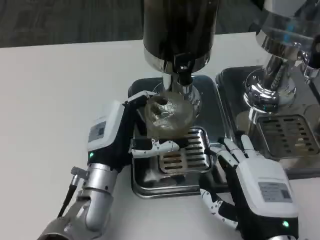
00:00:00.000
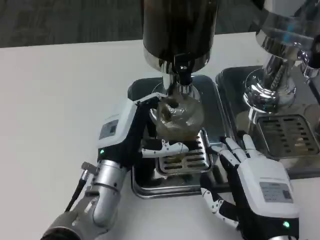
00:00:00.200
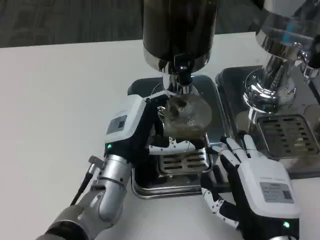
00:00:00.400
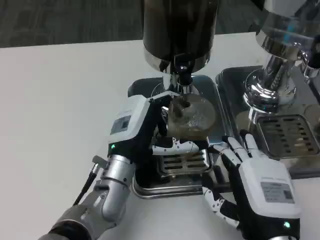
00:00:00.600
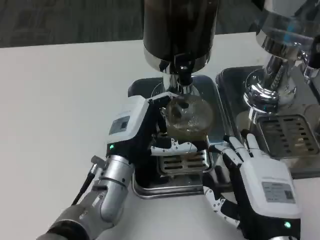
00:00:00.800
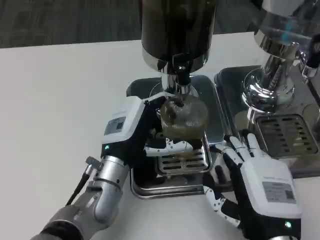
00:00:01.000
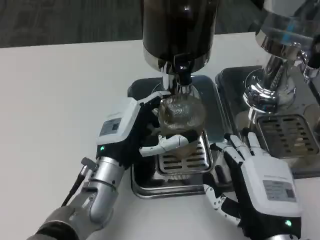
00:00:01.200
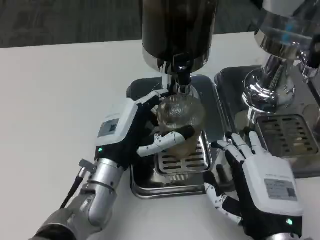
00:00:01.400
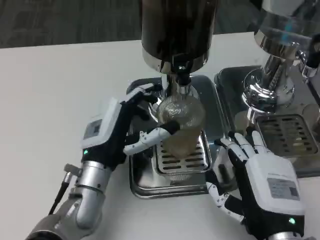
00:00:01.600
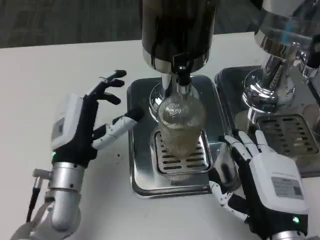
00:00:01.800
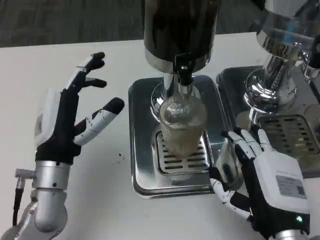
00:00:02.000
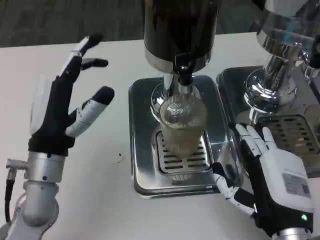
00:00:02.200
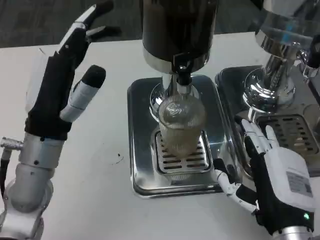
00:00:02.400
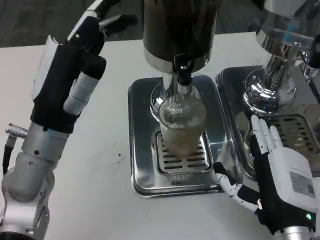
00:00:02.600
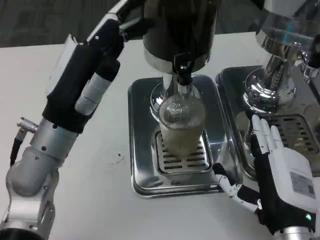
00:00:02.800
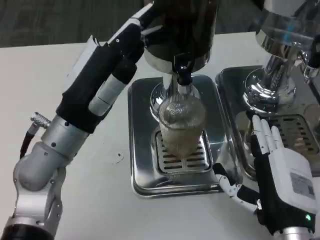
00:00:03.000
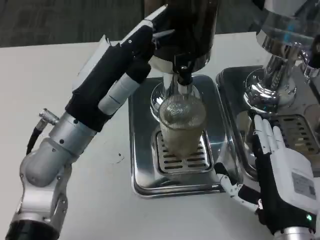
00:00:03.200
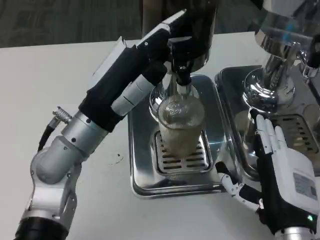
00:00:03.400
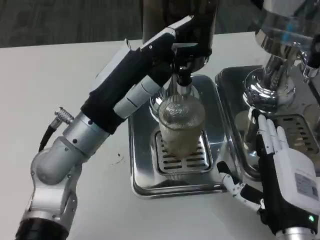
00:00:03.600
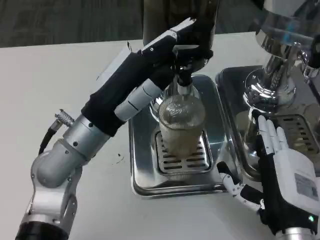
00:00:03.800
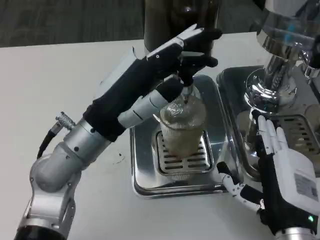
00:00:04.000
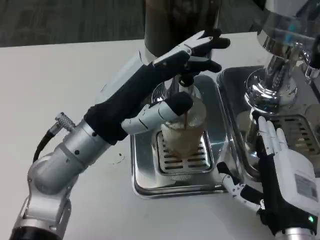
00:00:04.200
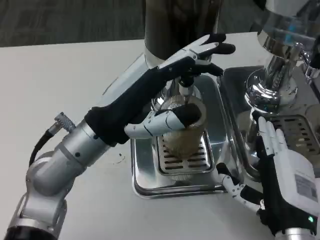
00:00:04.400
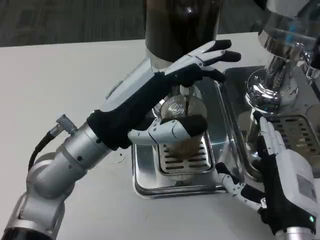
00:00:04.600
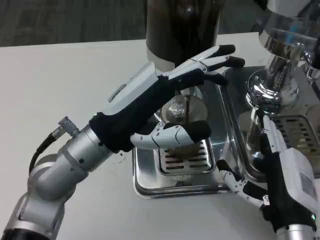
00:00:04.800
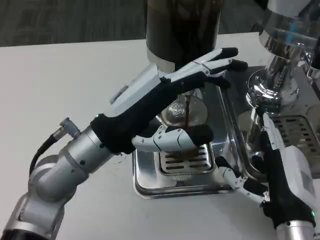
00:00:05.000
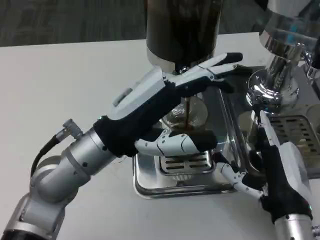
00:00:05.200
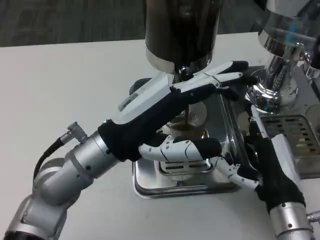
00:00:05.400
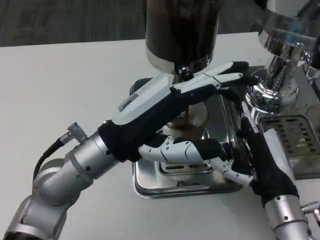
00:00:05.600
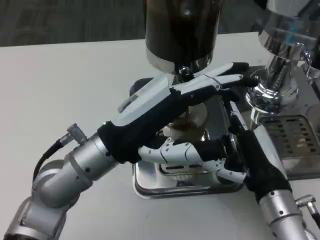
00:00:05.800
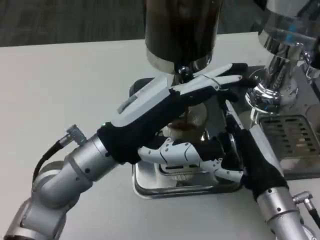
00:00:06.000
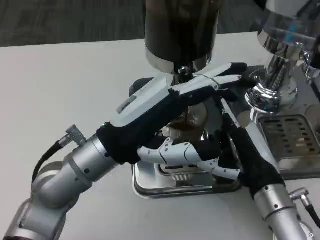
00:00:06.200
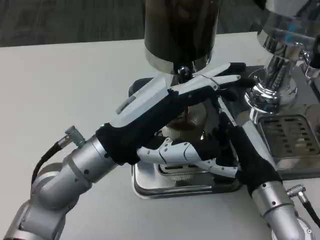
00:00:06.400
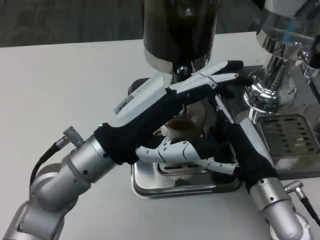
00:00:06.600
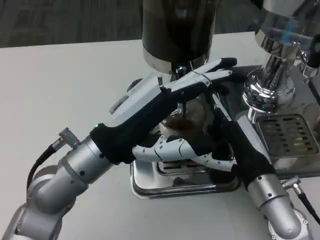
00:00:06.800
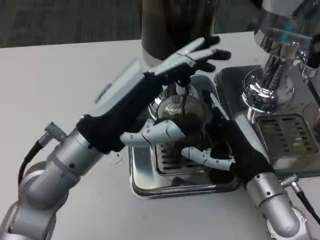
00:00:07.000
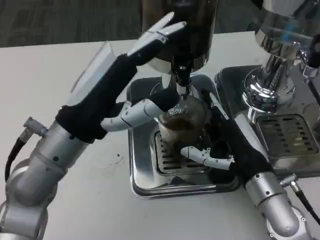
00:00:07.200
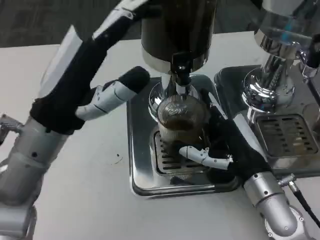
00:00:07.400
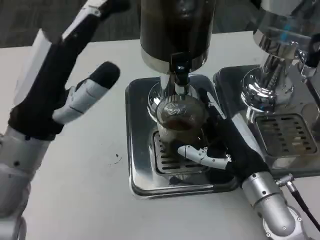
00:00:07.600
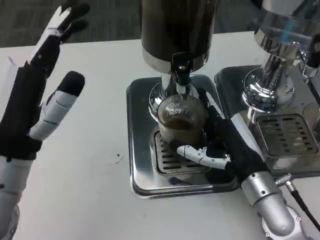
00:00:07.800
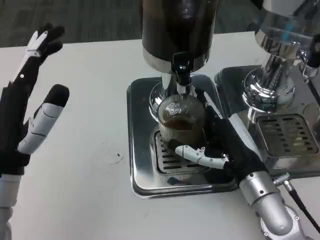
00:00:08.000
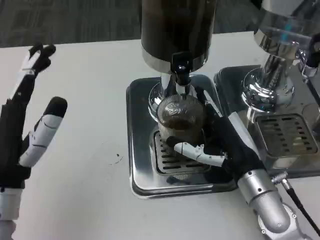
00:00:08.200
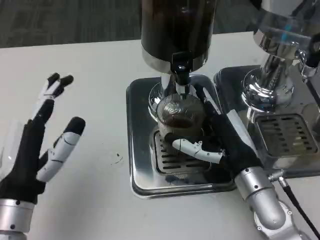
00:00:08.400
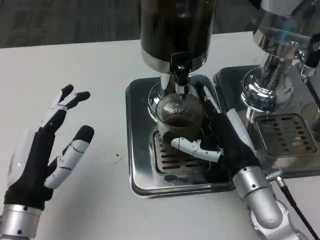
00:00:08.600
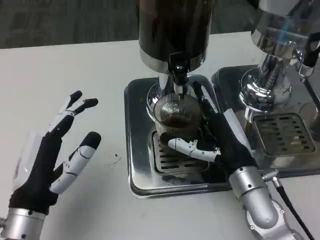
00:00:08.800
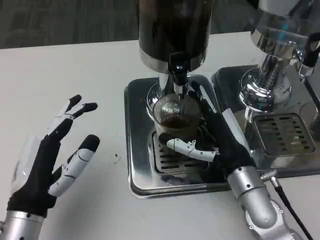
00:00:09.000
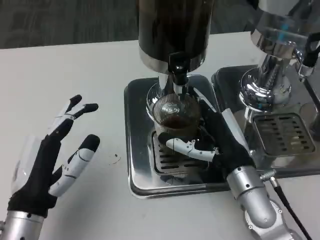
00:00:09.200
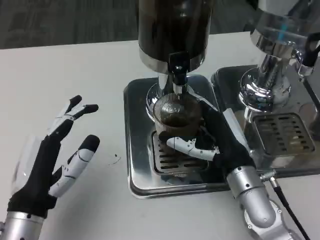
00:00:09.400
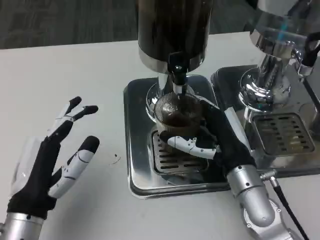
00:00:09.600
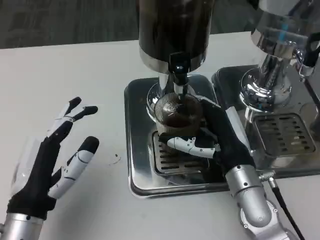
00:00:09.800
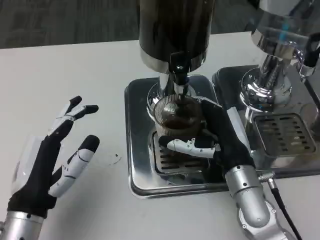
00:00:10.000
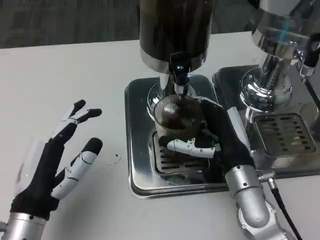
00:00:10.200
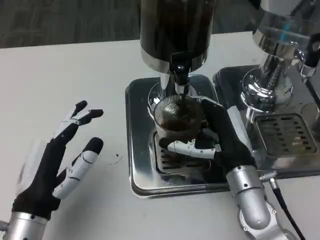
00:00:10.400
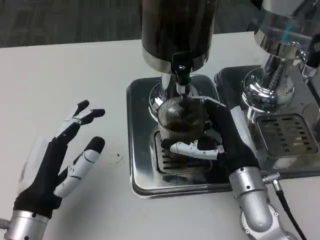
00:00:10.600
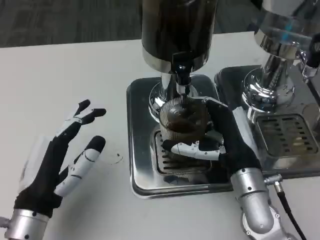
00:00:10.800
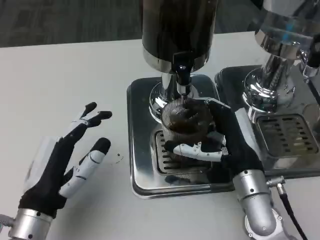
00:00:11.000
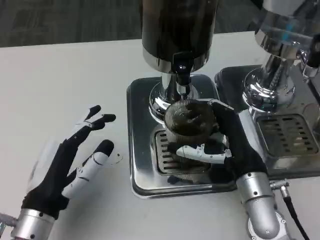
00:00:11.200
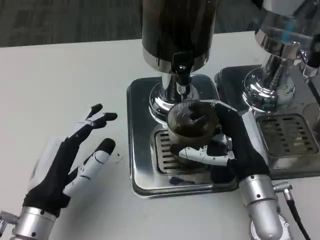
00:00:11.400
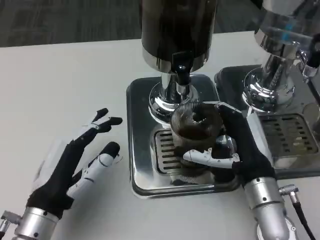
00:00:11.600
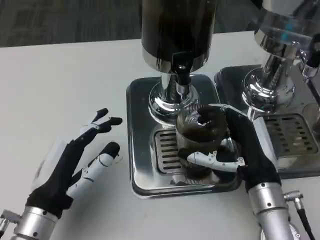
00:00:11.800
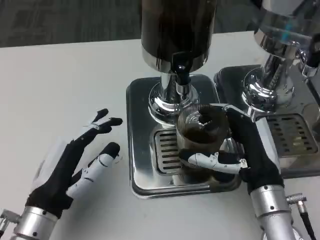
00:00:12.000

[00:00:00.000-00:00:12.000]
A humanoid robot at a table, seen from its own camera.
Task of the whole recording: Grasp the cup under the faucet to collect the drink, then remove the cup.
00:00:01.600 to 00:00:03.000: The left hand shifts some 10 cm upward.
00:00:04.400 to 00:00:06.000: The right hand shifts approximately 5 cm forward.
00:00:06.000 to 00:00:07.600: The left hand goes about 5 cm to the left.
00:00:07.600 to 00:00:09.000: The left hand shifts approximately 10 cm downward and backward.
00:00:09.000 to 00:00:10.400: The hands move only a little.

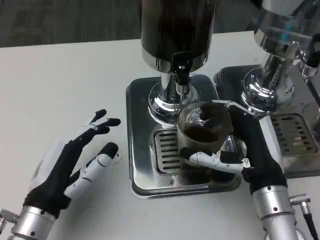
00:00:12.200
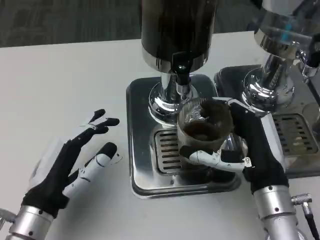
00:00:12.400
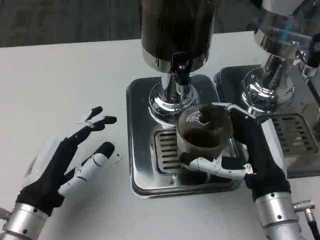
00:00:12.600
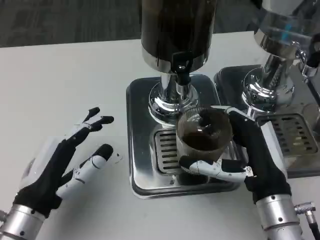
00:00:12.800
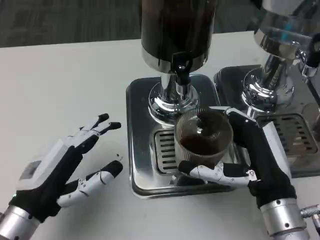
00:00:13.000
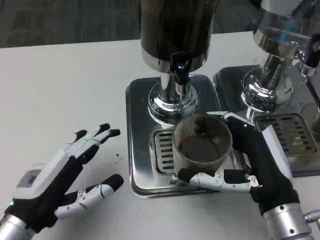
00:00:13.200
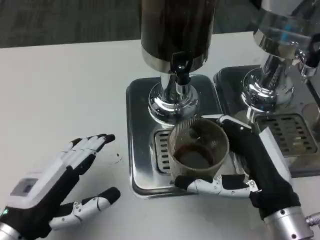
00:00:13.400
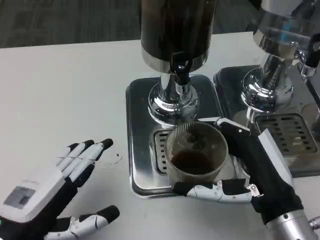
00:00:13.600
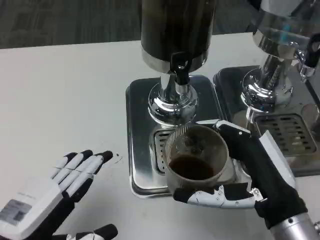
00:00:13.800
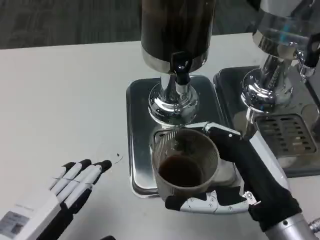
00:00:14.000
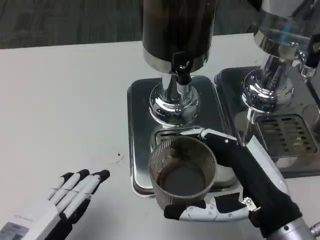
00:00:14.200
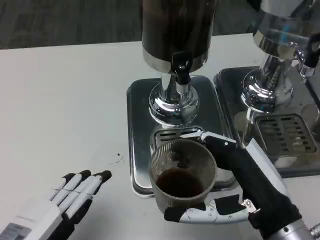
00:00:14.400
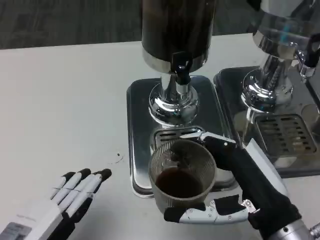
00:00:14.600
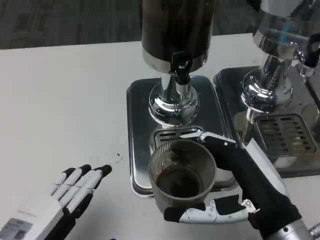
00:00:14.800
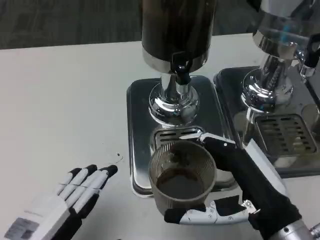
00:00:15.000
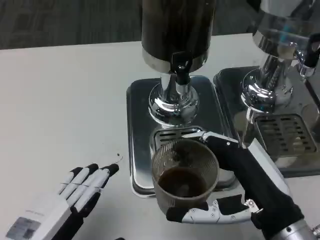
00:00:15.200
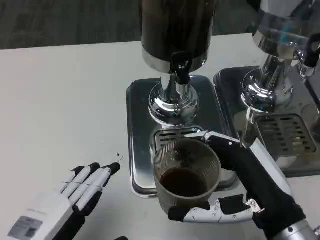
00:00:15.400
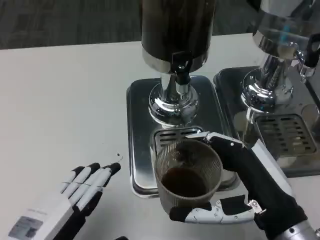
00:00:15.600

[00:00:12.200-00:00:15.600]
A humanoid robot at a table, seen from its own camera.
Task of the whole recording: Grasp the cup under the faucet to collect the drink, then remove the cup.
00:00:12.200 to 00:00:13.800: The two hands go about 5 cm backward.

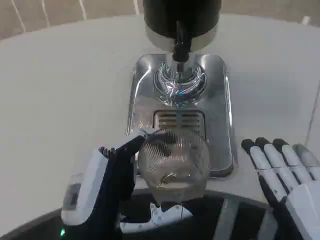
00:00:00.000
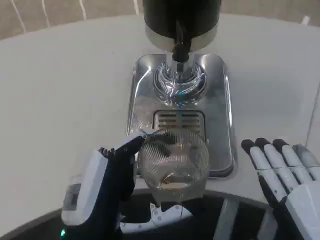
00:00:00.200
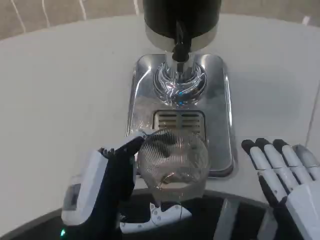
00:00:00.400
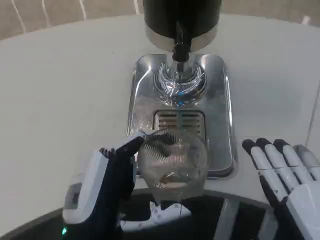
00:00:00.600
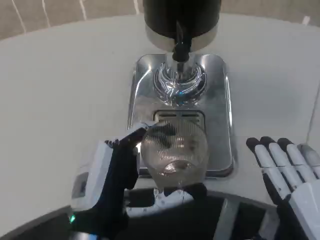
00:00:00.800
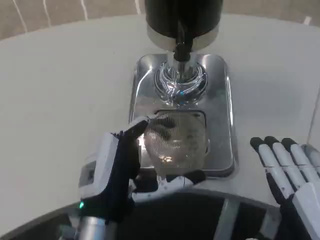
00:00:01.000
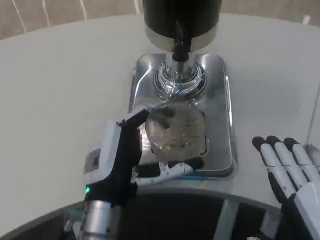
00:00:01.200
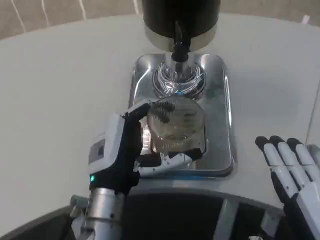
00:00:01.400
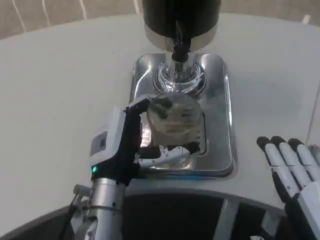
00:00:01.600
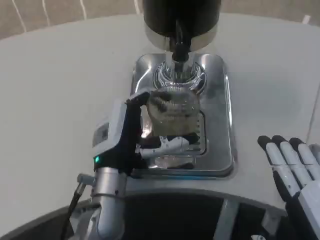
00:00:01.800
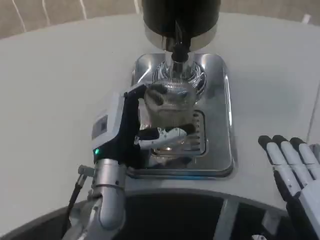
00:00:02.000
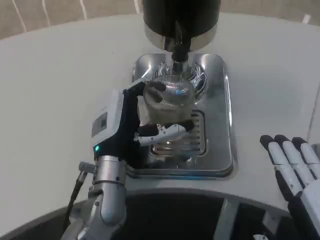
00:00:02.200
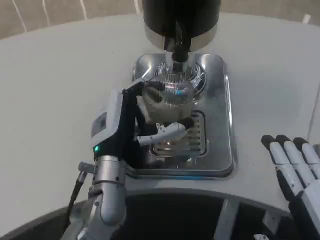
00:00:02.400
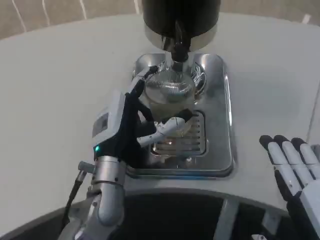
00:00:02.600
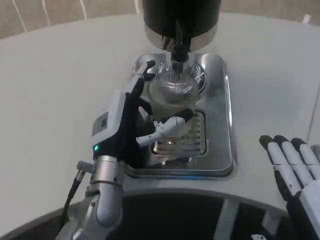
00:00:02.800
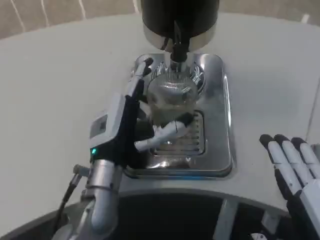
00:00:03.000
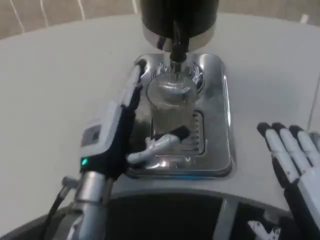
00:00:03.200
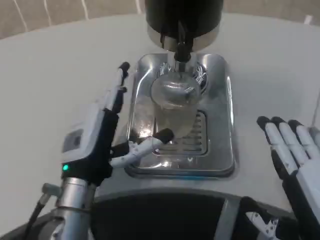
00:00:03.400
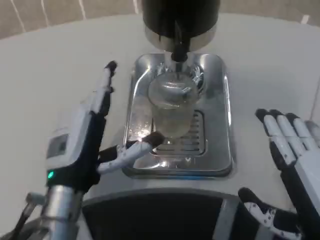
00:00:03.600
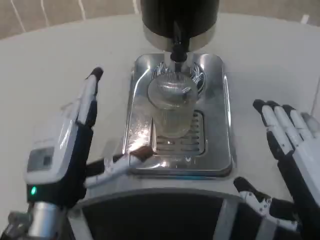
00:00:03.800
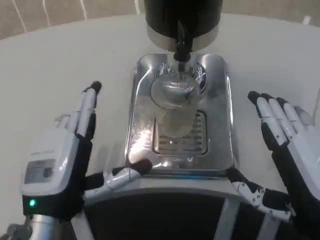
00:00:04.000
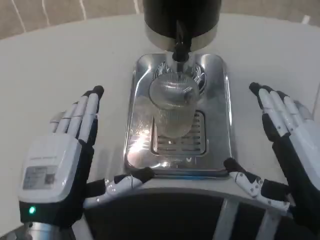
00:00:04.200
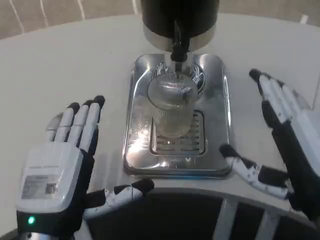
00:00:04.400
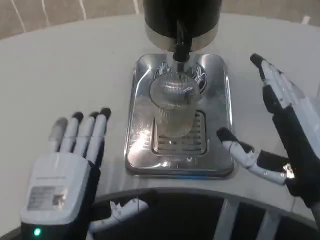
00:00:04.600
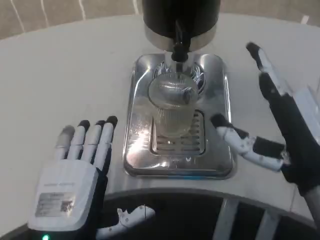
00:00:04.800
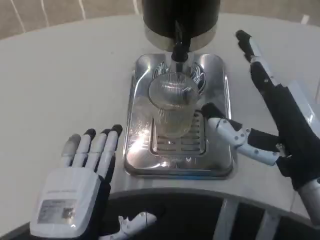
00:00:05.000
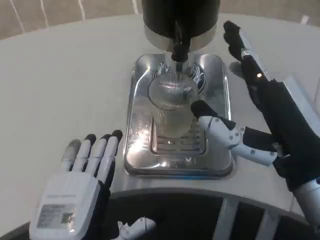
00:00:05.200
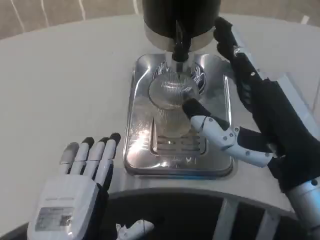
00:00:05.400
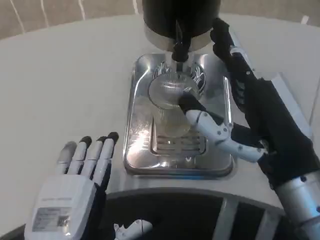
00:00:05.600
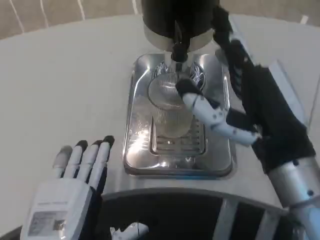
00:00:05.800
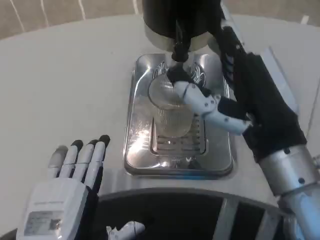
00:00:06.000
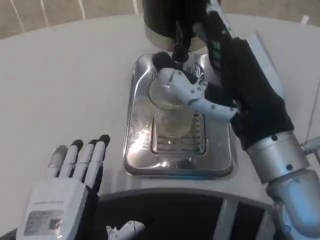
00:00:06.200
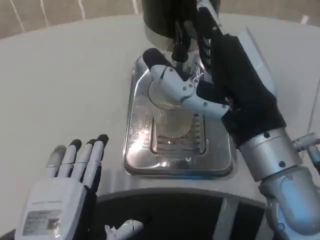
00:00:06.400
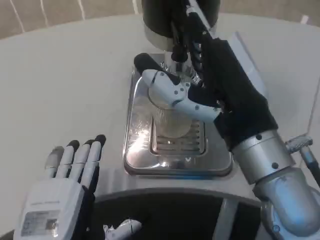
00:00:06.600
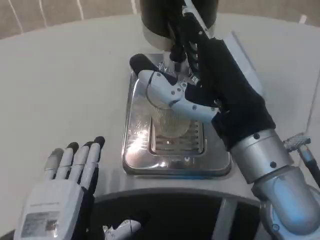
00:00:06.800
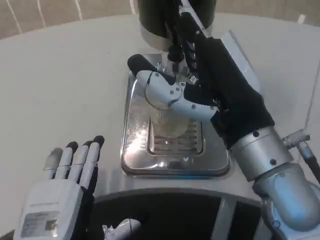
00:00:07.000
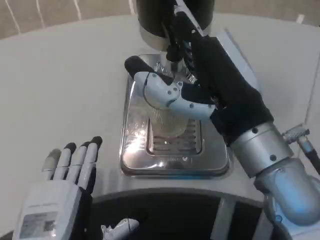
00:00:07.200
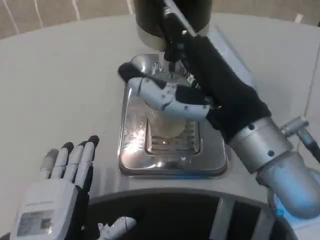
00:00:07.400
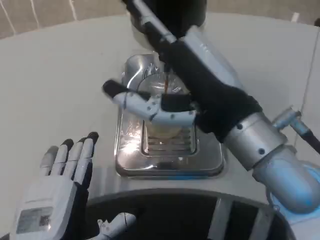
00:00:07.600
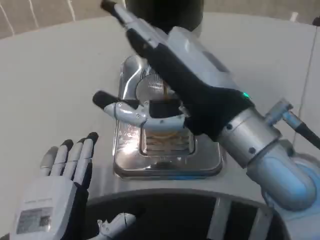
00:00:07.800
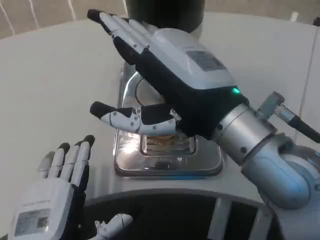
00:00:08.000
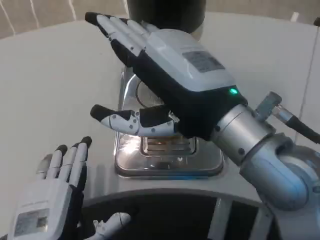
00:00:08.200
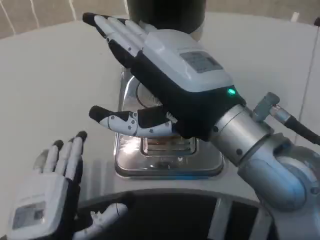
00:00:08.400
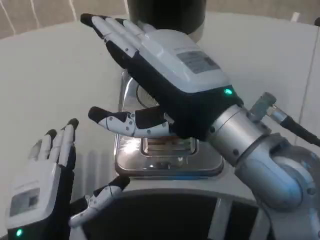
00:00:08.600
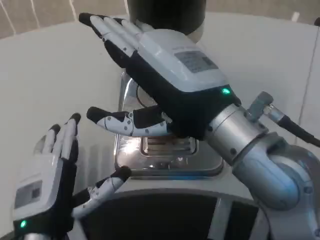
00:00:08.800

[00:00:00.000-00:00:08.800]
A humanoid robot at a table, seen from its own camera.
Task of the whole recording: Grasp the cup under the faucet to collect the drink, then remove the cup.
00:00:00.000 to 00:00:01.400: The left hand travels forward by roughly 10 cm.
00:00:01.400 to 00:00:03.000: The hands move only a little.
00:00:03.000 to 00:00:04.400: The left hand shifts approximately 15 cm backward and to the left. Meanwhile the right hand shifts approximately 5 cm forward.
00:00:04.400 to 00:00:05.800: The right hand changes place by about 5 cm.
